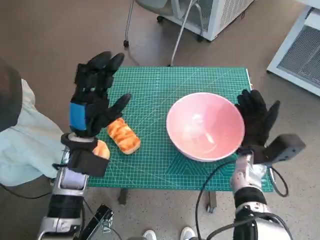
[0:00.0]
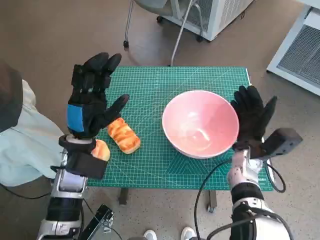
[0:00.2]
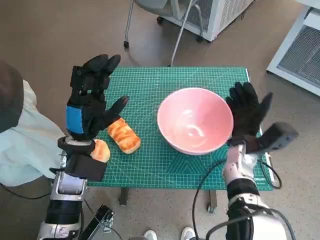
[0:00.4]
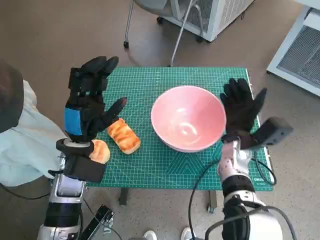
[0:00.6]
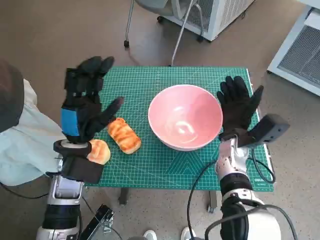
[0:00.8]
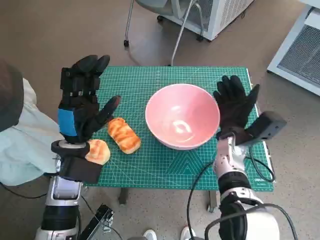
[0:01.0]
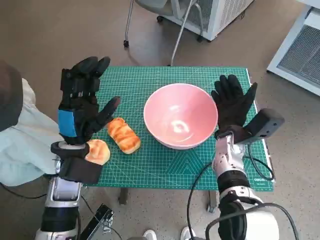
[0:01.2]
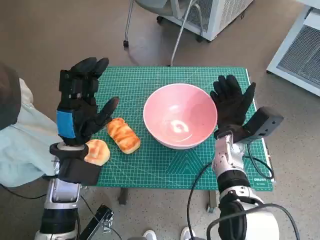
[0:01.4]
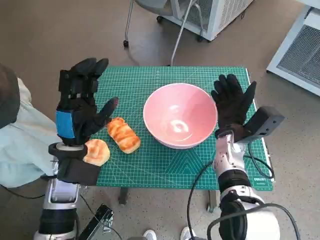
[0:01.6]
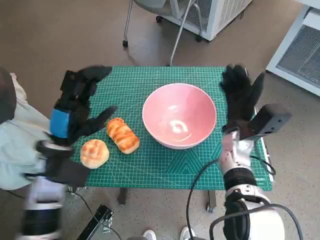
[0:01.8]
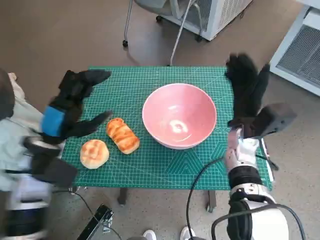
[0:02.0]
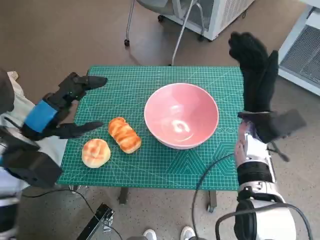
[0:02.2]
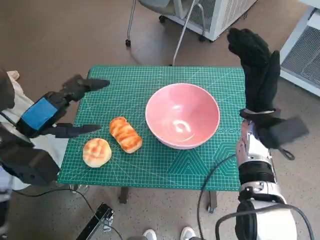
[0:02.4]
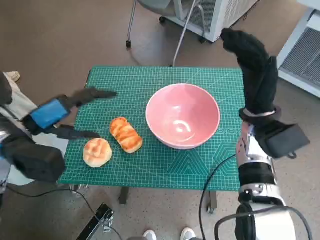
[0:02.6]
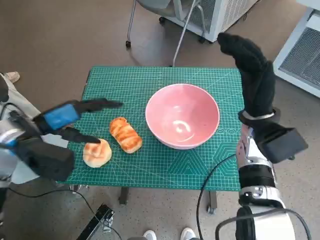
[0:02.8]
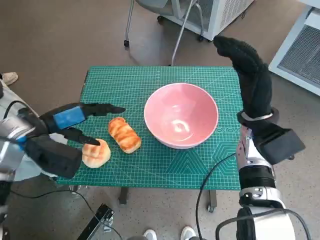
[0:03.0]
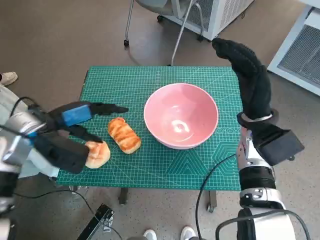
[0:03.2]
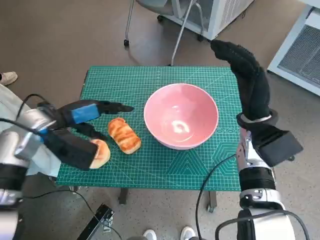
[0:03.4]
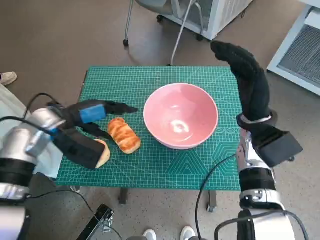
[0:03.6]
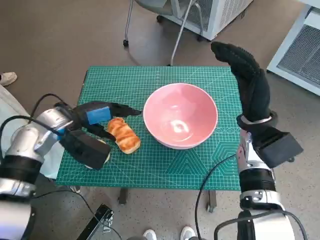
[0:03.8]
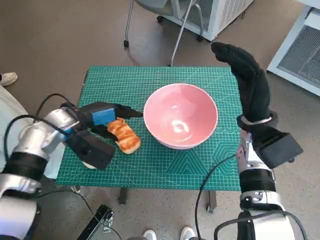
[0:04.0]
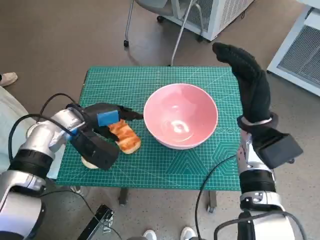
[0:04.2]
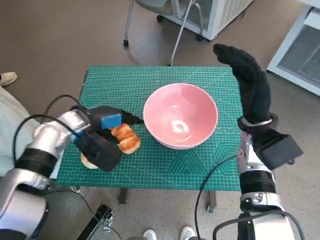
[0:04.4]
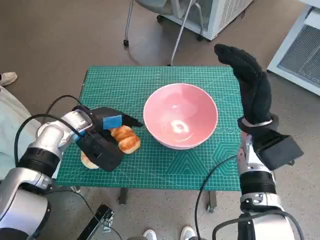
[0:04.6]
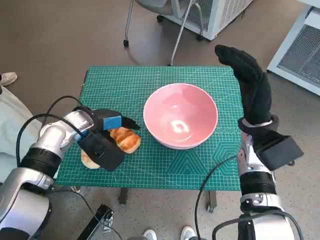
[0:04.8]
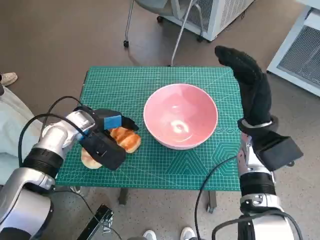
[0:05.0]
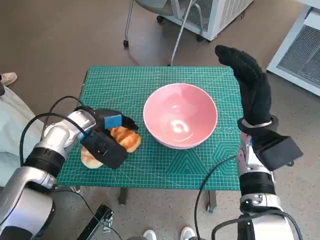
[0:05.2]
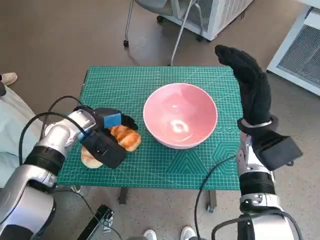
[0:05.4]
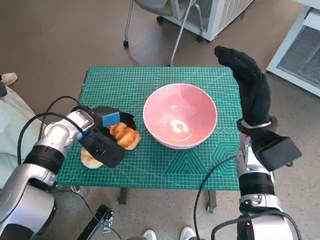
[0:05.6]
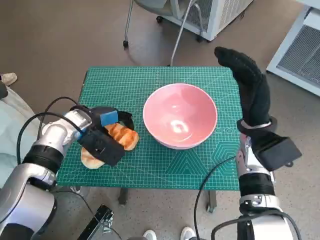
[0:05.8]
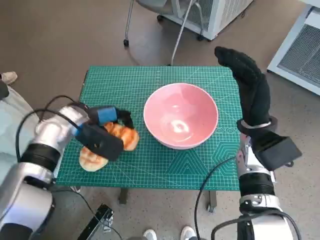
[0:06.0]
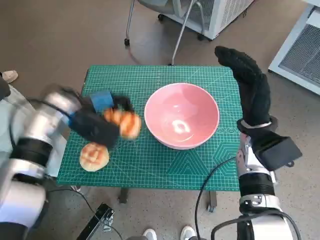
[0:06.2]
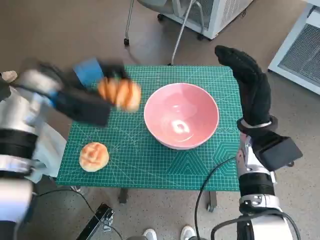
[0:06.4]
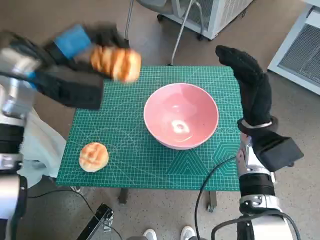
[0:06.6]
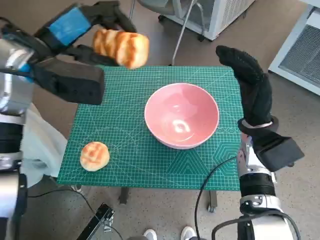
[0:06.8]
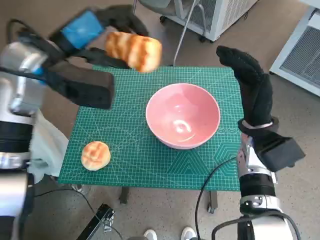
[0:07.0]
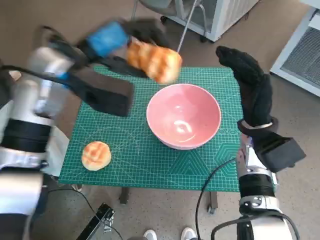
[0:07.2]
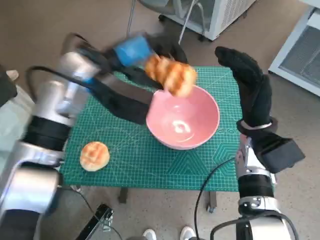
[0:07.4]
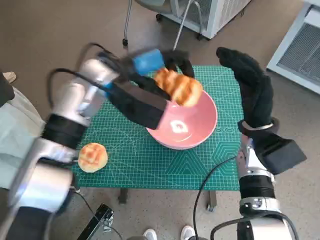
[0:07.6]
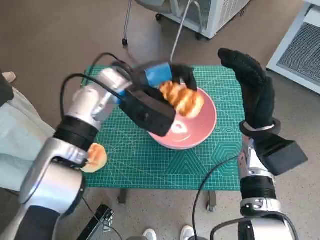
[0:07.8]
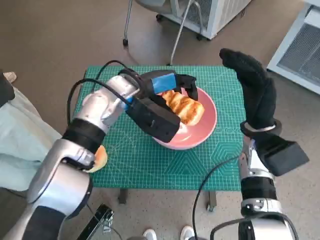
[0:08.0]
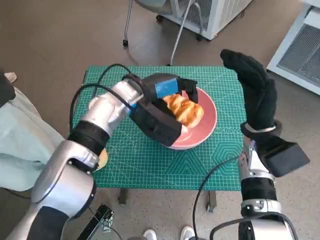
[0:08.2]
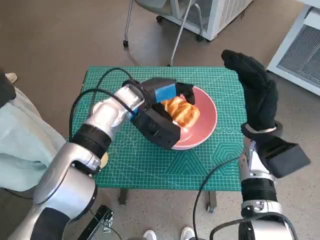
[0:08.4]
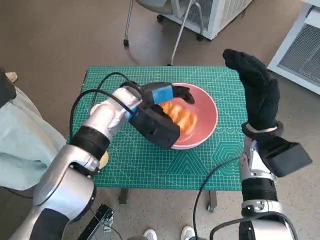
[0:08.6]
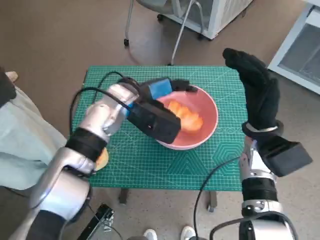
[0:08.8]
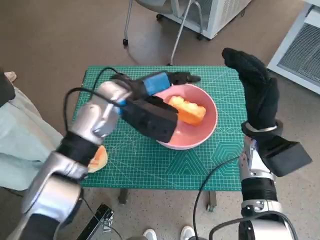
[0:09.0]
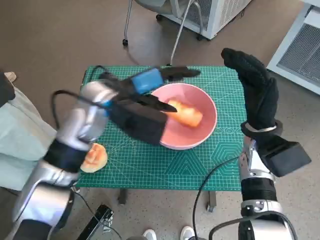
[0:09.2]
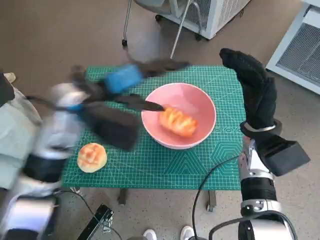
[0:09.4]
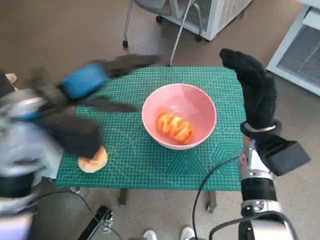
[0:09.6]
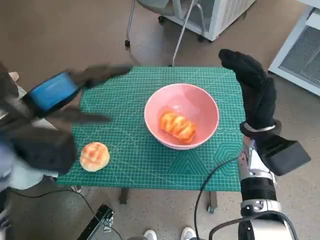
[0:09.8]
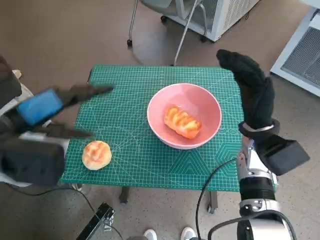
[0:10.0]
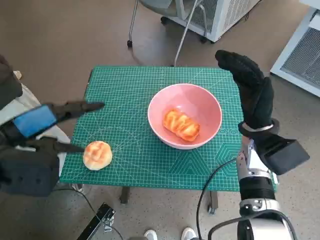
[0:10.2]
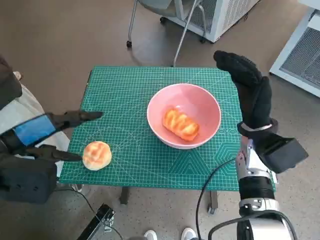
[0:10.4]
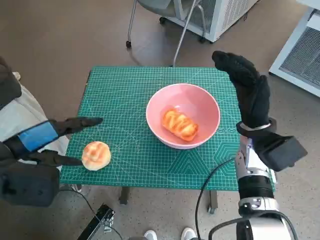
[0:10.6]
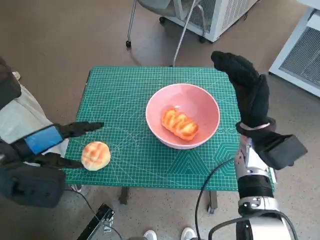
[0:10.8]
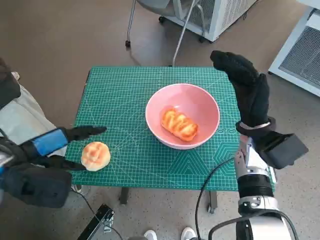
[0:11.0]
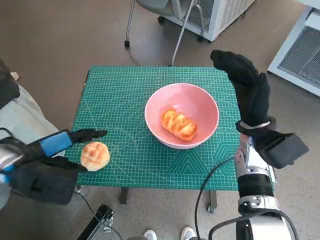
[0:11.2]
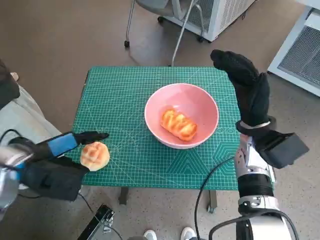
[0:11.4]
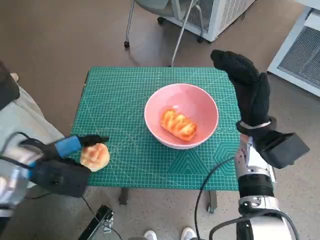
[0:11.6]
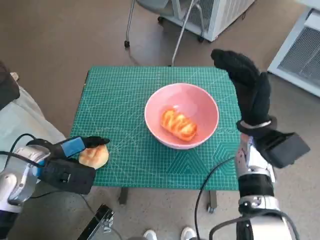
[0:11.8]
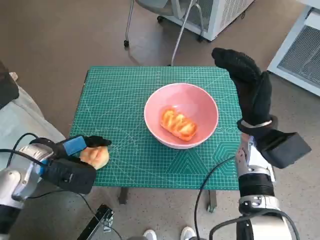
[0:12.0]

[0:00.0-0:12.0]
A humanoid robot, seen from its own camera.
Task of the whole recording: Push the bowl to the center of the table and put the bread into the bowl.
Step, 0:02.0 to 0:05.4: Grasp the long bread with left hand.
Step, 0:05.6 to 0:09.2: Place the long bread in pink bowl with left hand.
Step, 0:09.4 to 0:11.8: Grasp the round bread with left hand.
0:00.0 to 0:01.6: The right hand is displaced to the left by about 5 cm.
0:01.6 to 0:03.0: The left hand goes roughly 10 cm to the left and upward, while the right hand heads upward, covering some 10 cm.
0:03.0 to 0:04.4: The left hand is displaced to the right, forward and downward by some 10 cm.
0:04.4 to 0:06.0: The hands move only a little.
0:06.0 to 0:07.6: The left hand is displaced upward and to the right by roughly 15 cm.
0:09.0 to 0:10.4: The left hand travels to the left and backward by some 20 cm.
0:10.4 to 0:12.0: The left hand is displaced downward by about 10 cm.

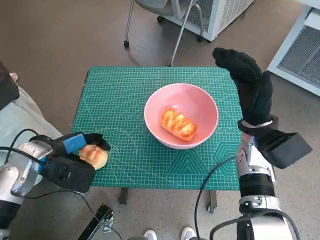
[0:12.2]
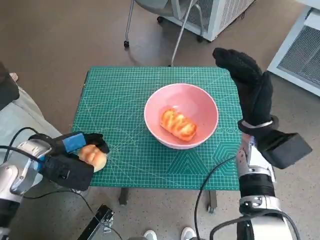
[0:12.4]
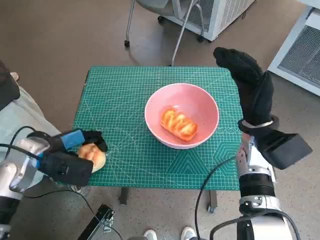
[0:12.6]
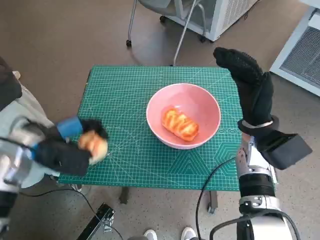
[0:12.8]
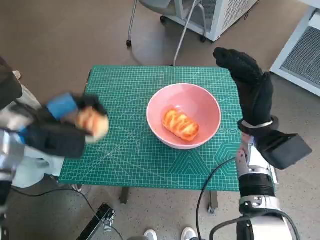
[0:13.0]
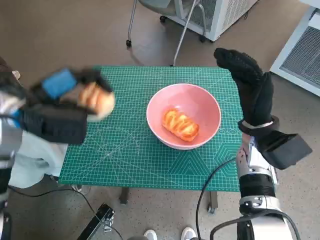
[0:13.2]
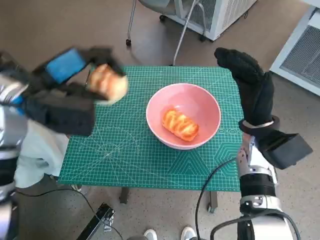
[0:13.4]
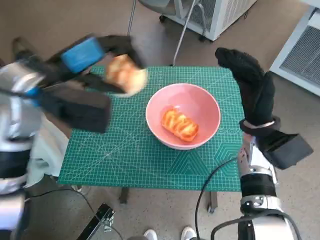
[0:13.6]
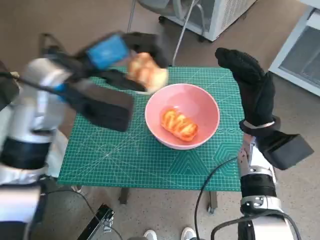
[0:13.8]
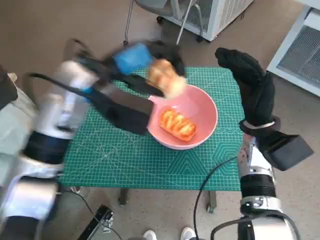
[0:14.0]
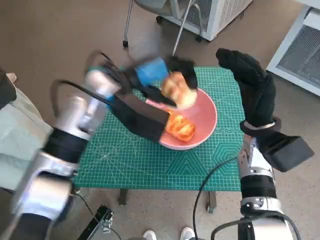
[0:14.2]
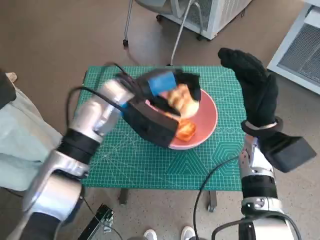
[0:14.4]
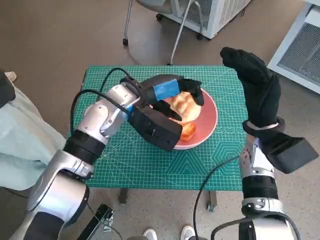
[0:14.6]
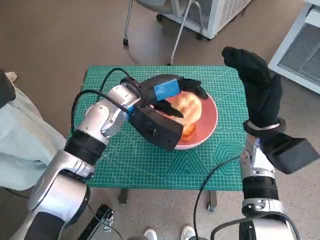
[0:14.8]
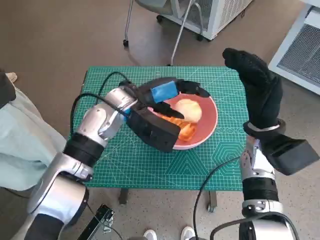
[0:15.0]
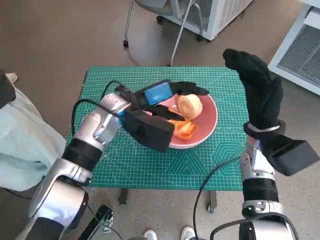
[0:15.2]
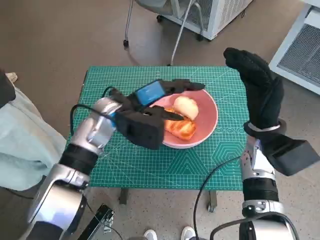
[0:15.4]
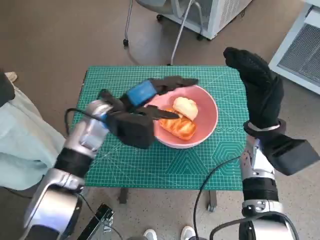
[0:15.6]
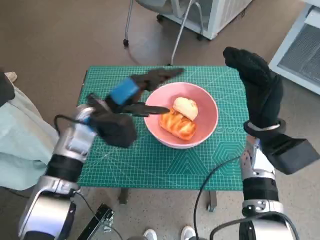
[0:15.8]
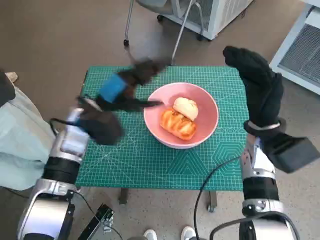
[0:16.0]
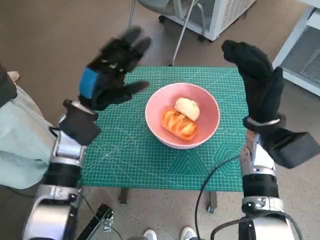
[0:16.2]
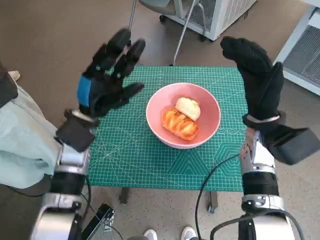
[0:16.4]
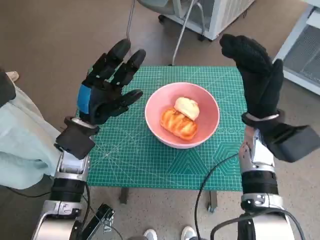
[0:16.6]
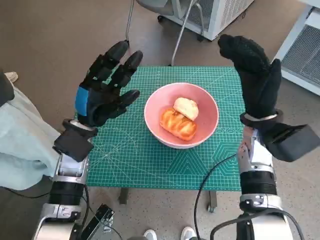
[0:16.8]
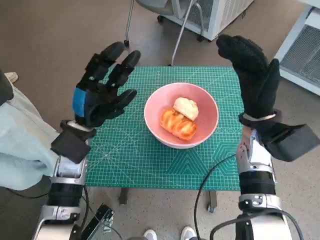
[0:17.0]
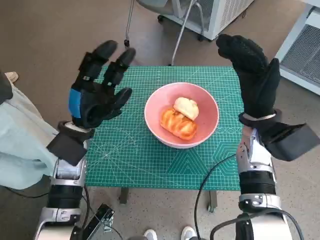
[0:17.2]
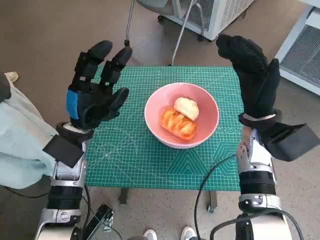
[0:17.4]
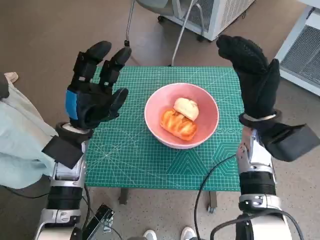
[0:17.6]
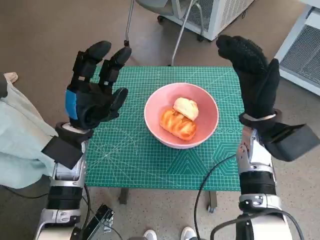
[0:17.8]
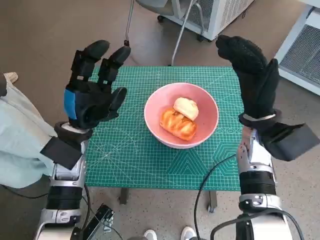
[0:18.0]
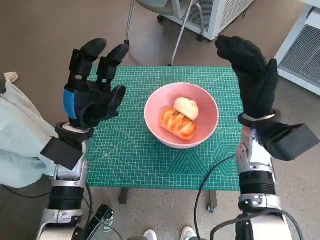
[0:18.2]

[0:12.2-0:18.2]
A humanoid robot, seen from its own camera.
Task of the whole recording: Push the bowl to the center of the table and put the bread into the bowl.
Step, 0:12.2 to 0:15.6: Place the round bread in pink bowl with left hand.
0:12.2 to 0:13.8: The left hand heads upward and to the right, covering some 20 cm.
0:13.8 to 0:15.2: The left hand shifts about 10 cm downward and to the right.
0:15.2 to 0:16.6: The left hand travels to the left by approximately 10 cm.
0:16.6 to 0:18.2: The hands stay close to where they were, moving slightly.

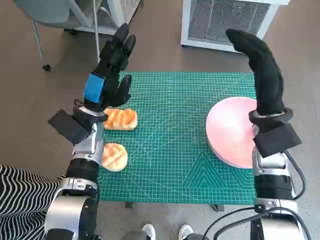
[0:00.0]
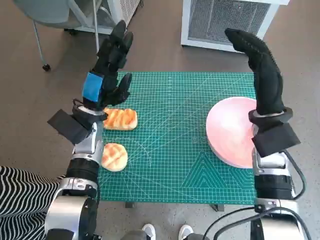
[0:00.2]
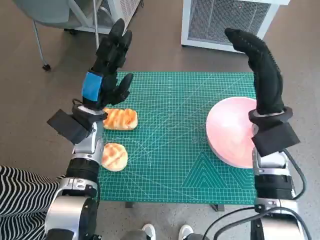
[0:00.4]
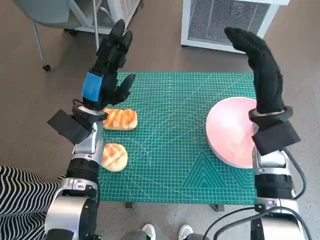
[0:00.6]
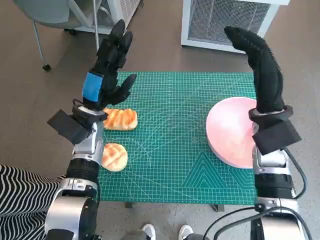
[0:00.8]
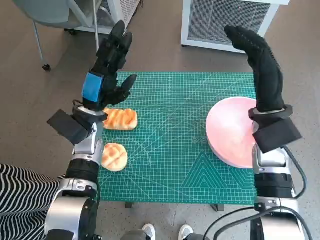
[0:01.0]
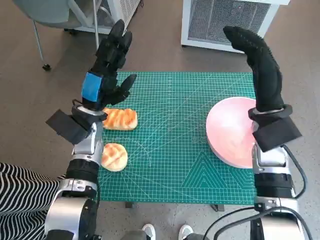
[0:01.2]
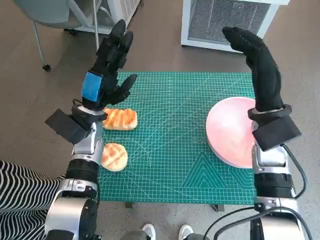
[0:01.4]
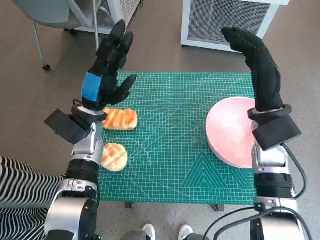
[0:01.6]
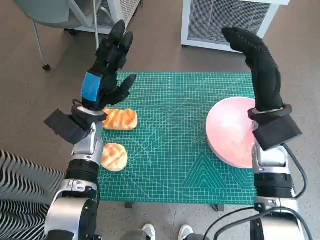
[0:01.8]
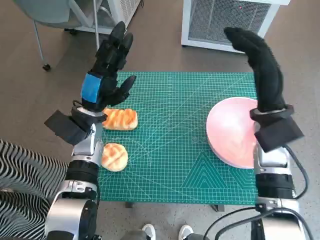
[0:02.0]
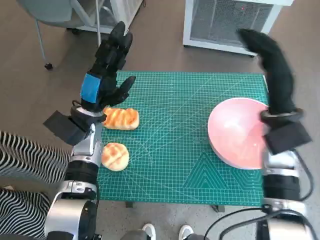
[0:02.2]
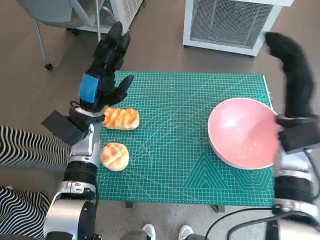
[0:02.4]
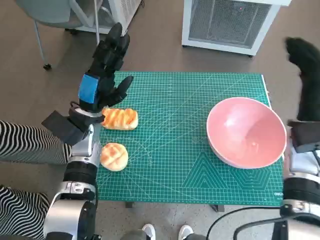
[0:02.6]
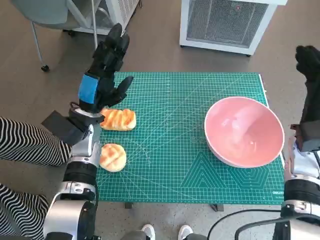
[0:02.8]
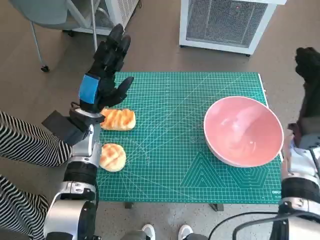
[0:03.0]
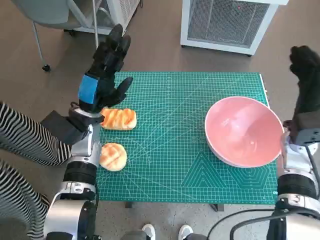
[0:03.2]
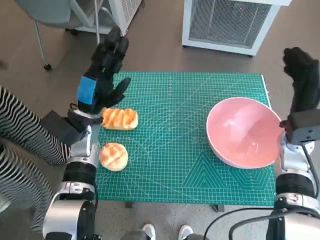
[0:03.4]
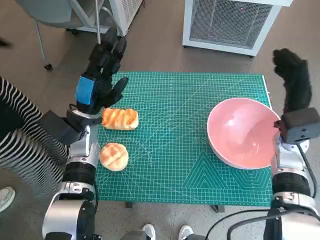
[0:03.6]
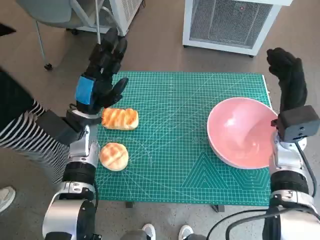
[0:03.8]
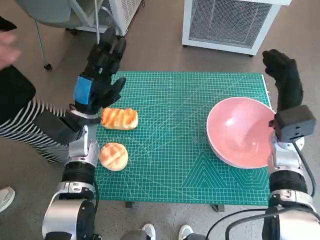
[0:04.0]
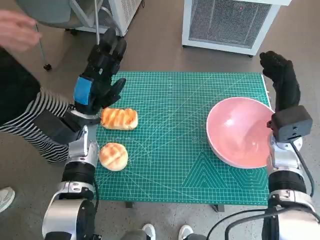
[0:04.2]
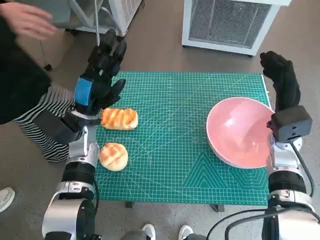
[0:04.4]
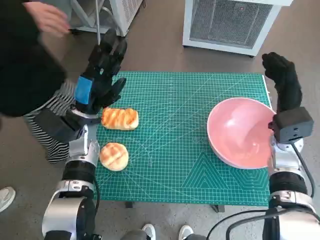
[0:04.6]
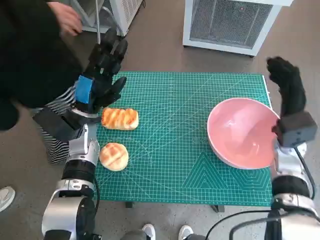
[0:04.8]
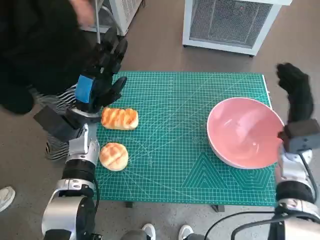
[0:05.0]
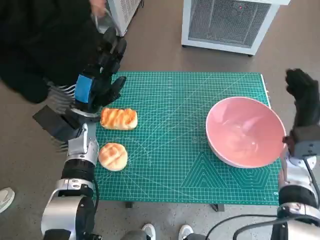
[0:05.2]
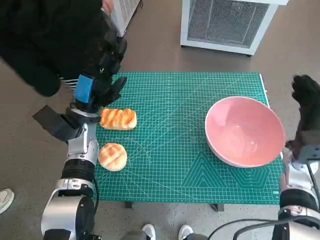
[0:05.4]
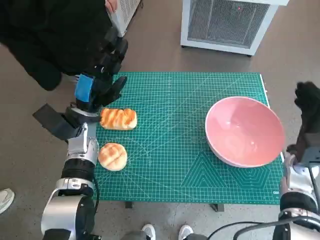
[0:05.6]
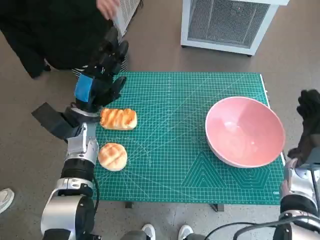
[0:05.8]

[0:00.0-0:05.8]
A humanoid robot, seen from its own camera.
Task of the whole recording: Push the bowl to the center of the table and put the bread into the bowl.
0:01.4 to 0:02.8: The right hand travels to the right by approximately 10 cm.
0:04.4 to 0:05.8: The right hand shifts approximately 5 cm downward and to the right.
